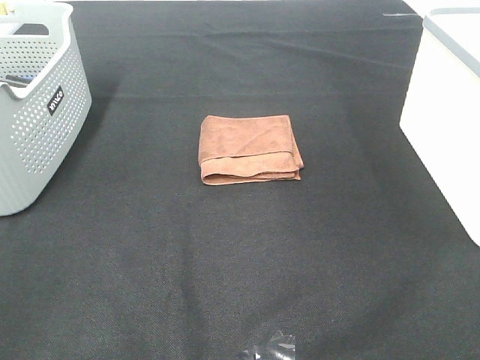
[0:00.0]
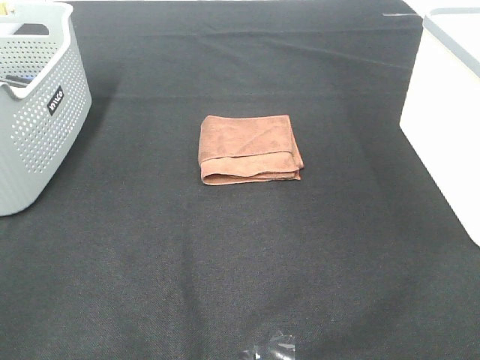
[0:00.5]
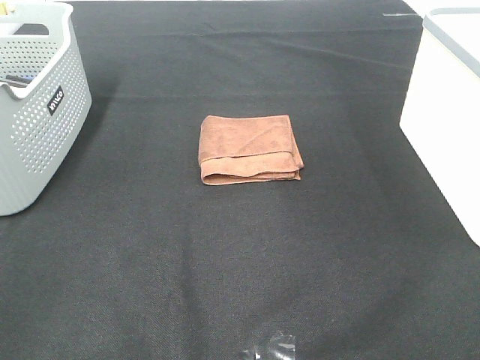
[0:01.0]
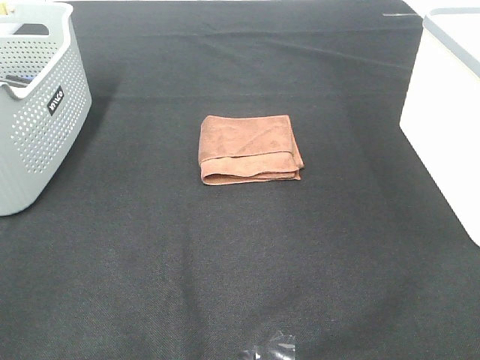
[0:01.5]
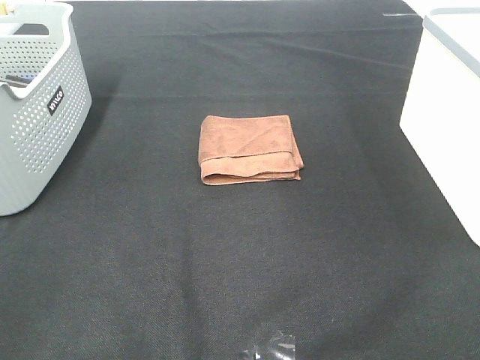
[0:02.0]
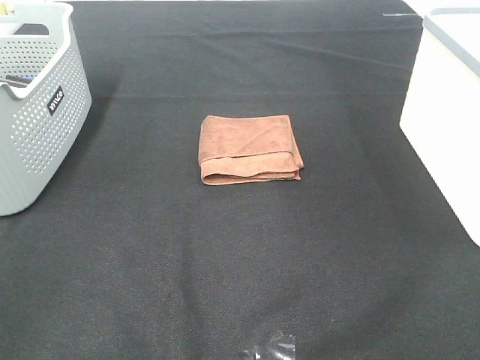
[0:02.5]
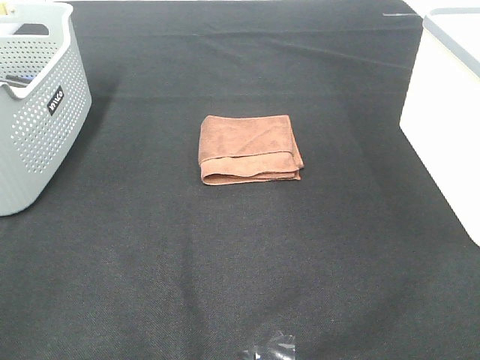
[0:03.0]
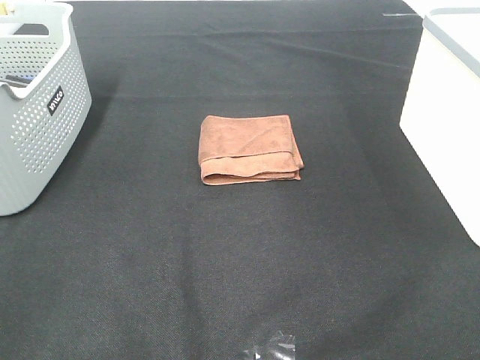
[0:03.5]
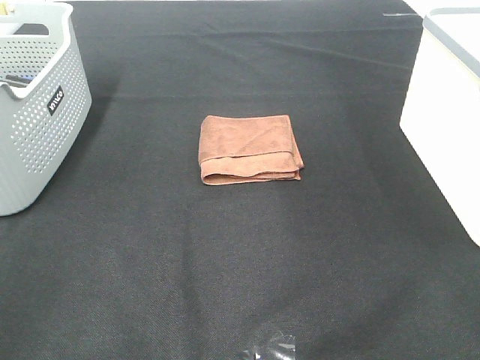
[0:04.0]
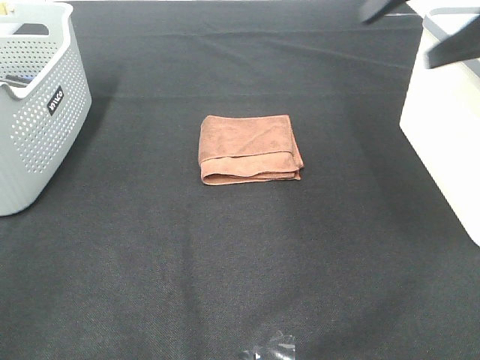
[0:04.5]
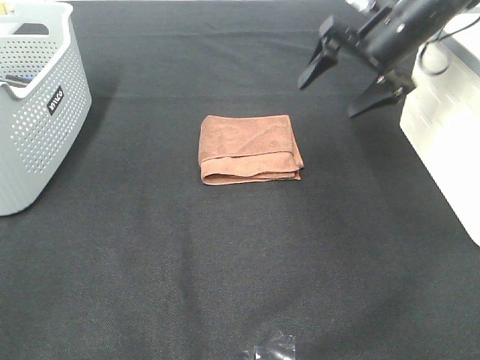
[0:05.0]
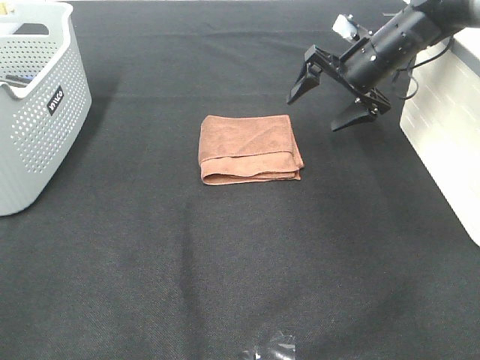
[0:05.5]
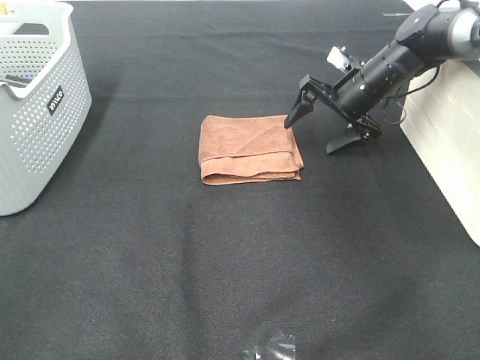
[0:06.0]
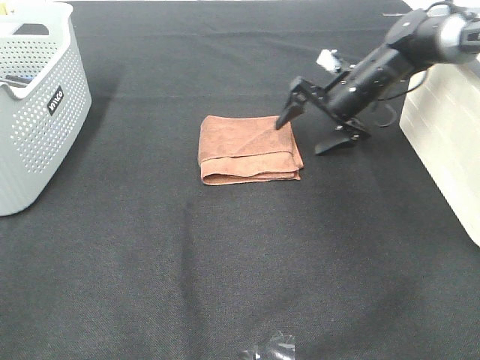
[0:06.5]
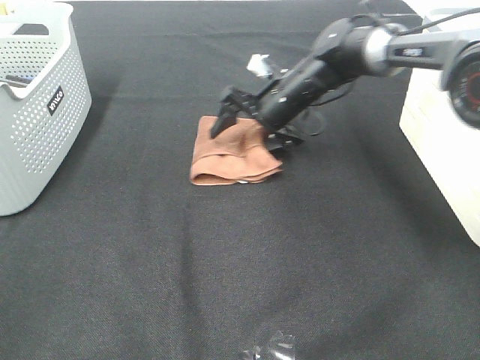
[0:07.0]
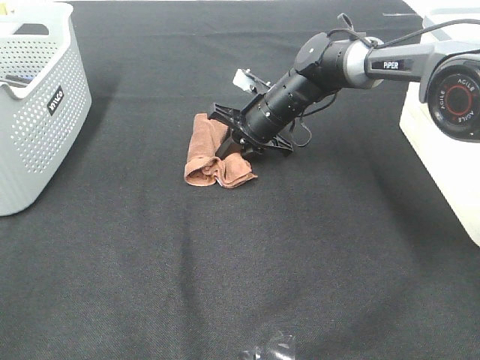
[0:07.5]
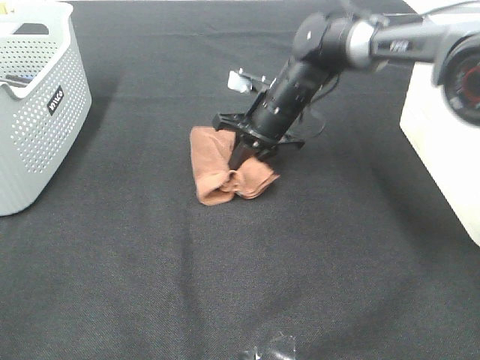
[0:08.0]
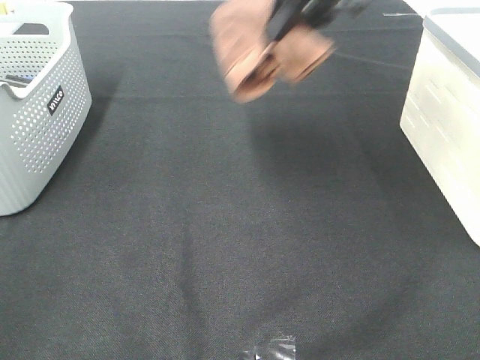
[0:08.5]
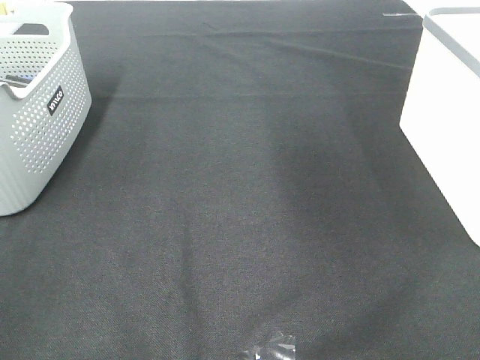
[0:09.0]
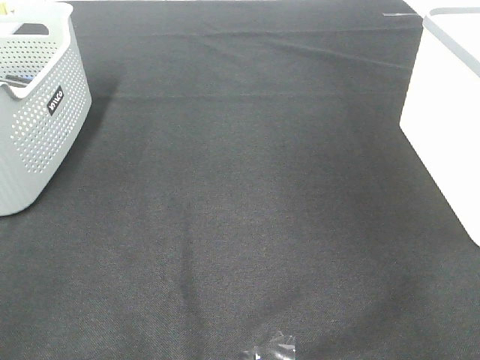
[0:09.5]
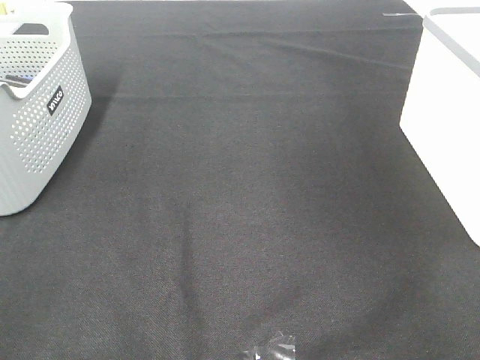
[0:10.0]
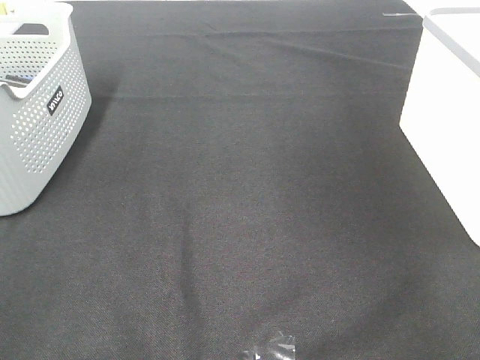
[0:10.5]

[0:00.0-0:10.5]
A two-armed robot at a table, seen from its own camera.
Step, 0:00.0 to 0:07.5: Right hand: grab the folded brown towel.
Step, 0:08.0 to 0:10.0: Right hand: place the brown towel in right basket.
0:00.0 to 0:02.0: Both grippers stay put.
0:04.0 to 0:06.5: The right gripper travels forward and downward by about 40 cm.
0:06.5 to 0:08.5: The right gripper heads upward, covering some 25 cm, and closes up.
0:08.5 to 0:10.5: The right gripper shifts roughly 30 cm to the right, and opens up.

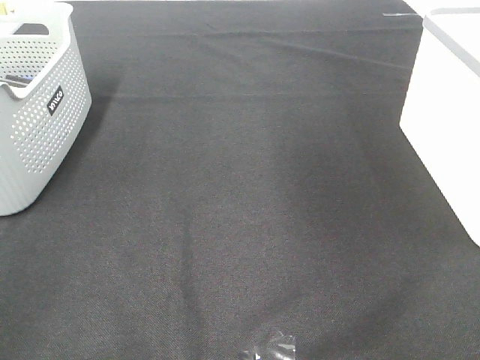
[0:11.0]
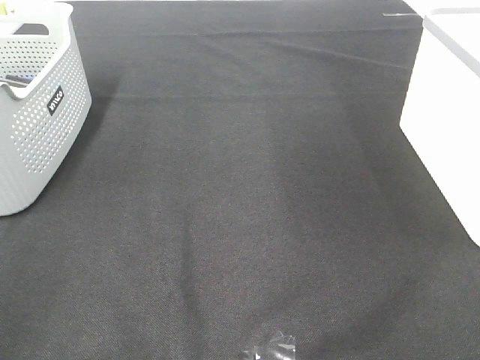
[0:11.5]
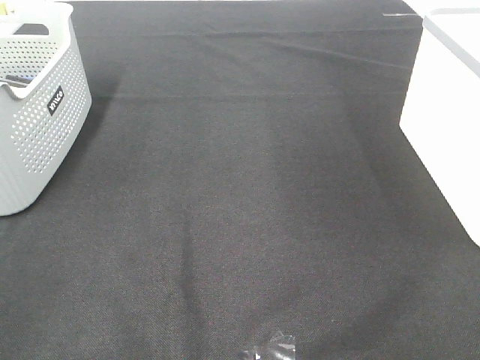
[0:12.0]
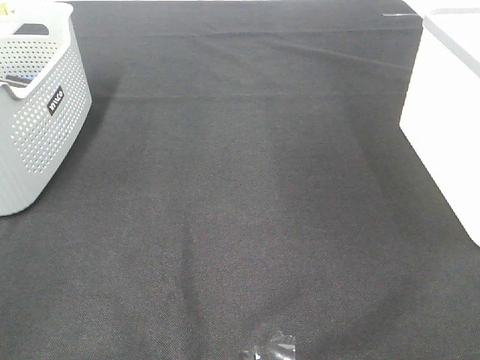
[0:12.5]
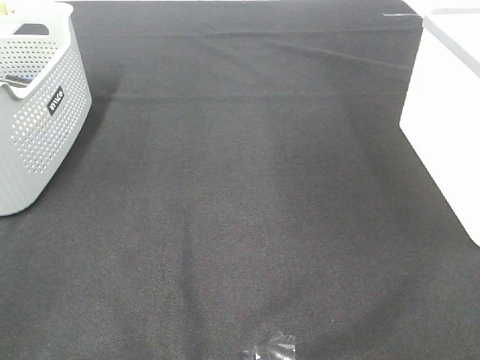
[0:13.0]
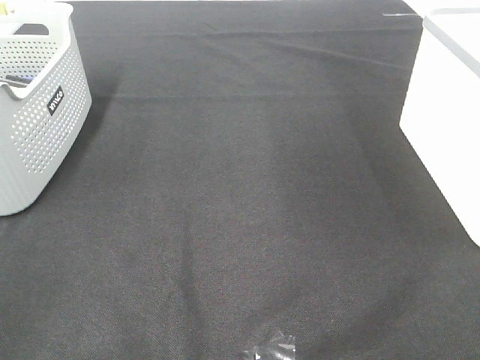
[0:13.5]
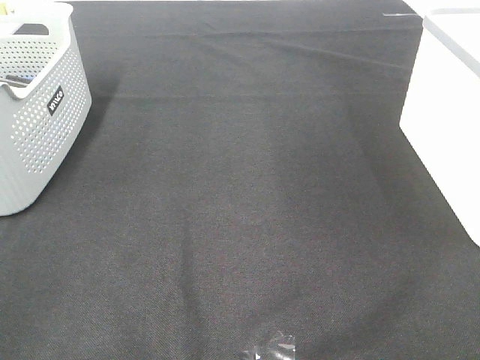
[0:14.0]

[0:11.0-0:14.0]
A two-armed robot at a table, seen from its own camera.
0:12.5 to 0:14.0: The two grippers keep their place.

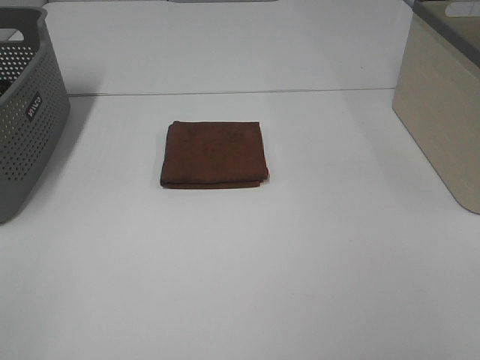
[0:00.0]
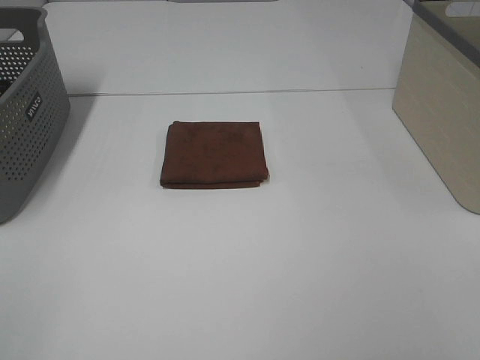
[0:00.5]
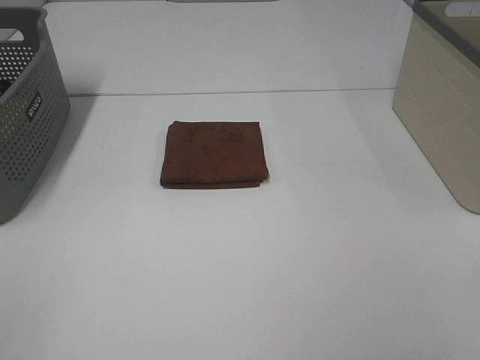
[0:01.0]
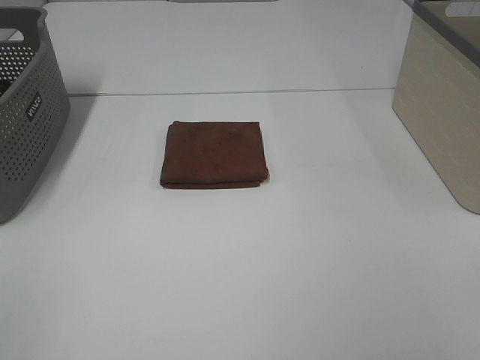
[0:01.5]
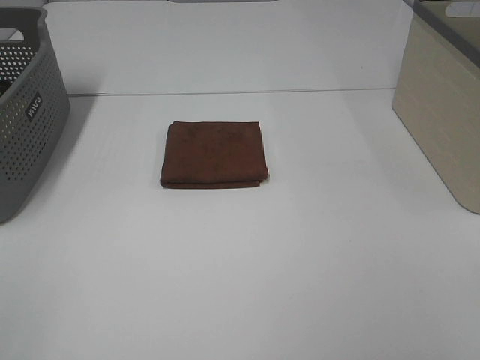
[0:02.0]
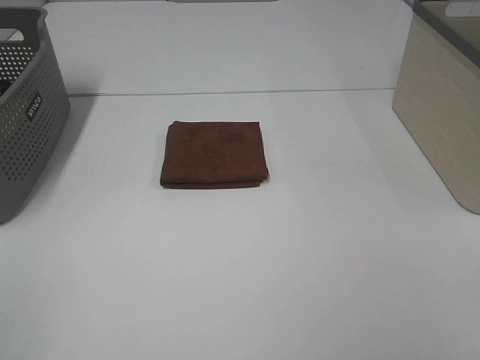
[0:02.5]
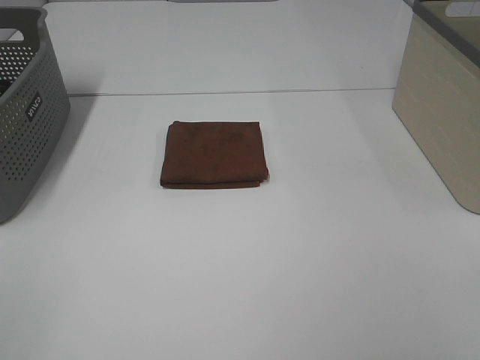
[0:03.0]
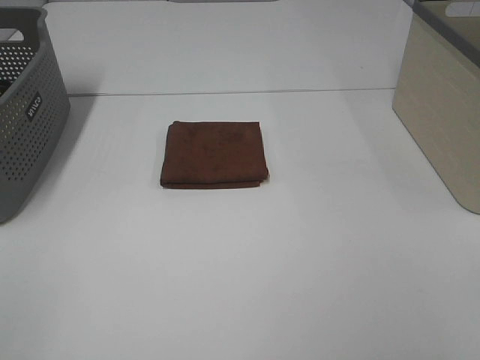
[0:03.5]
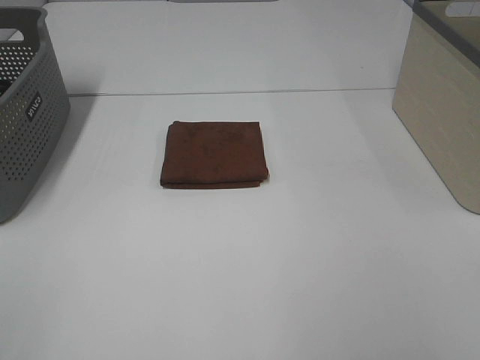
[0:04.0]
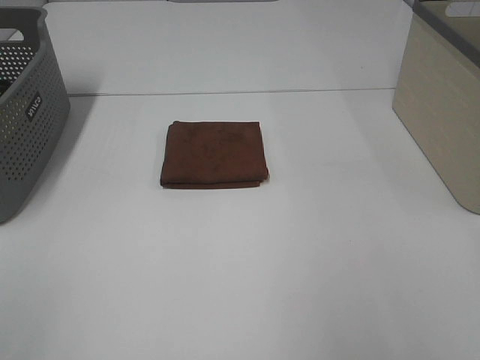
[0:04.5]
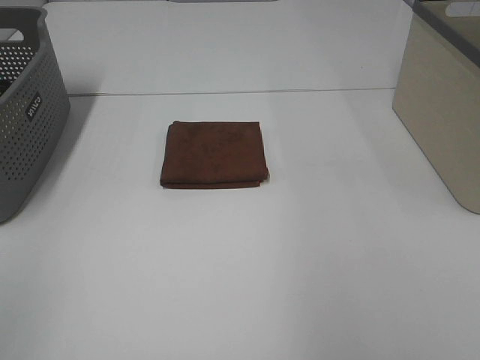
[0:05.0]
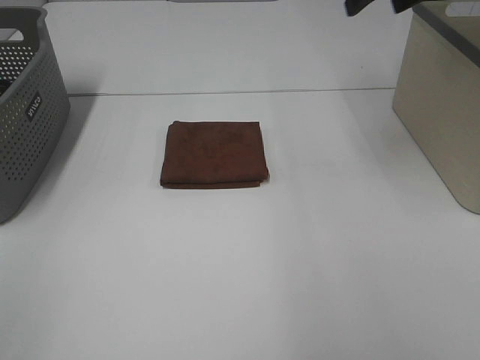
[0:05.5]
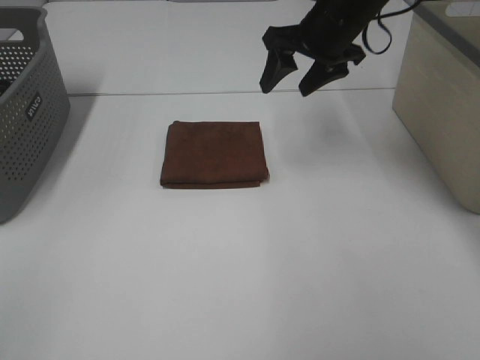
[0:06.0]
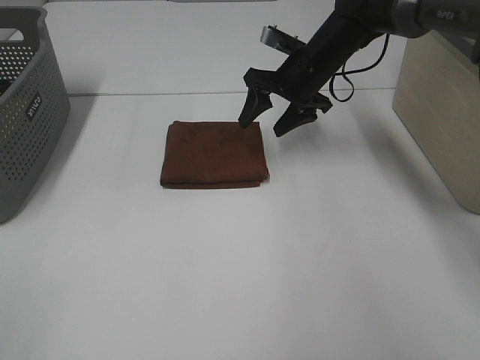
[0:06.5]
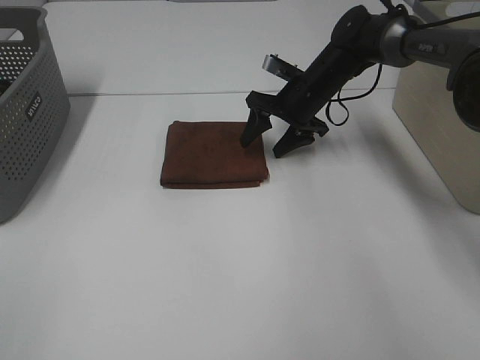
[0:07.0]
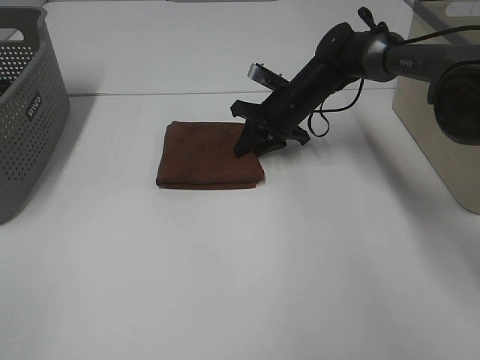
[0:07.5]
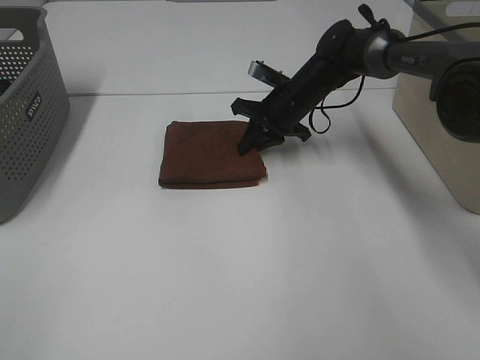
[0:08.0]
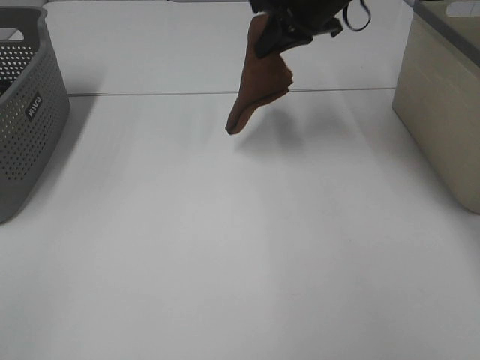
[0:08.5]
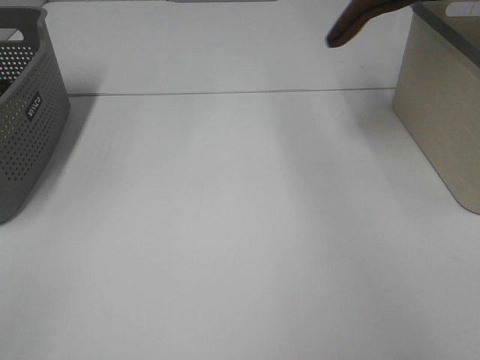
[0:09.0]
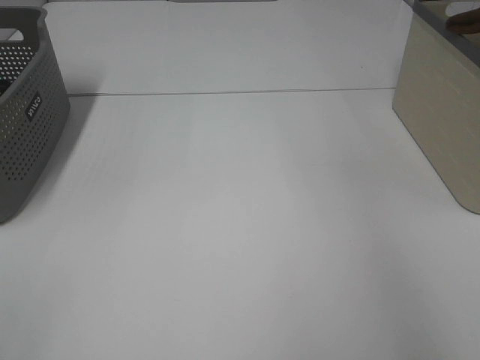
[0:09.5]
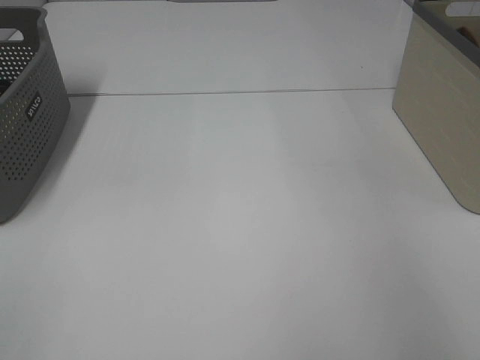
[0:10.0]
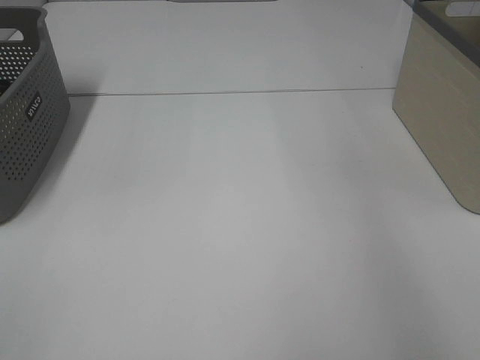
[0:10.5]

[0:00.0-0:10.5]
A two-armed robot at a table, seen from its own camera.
Step, 0:00.0 to 0:07.5: Right hand: grab the folded brown towel.
Step, 0:08.0 to 0:10.0: Right hand: place the brown towel in right basket.
0:00.0 to 0:02.0: Neither gripper changes place.
0:04.0 to 0:06.5: The right gripper moves forward, roughly 50 cm.
0:06.5 to 0:08.5: The right gripper heads upward, covering approximately 10 cm, and closes.
0:08.5 to 0:10.5: The right gripper moves to the right, some 25 cm, and opens its fingers.

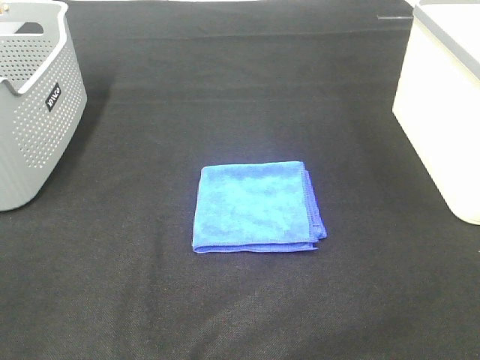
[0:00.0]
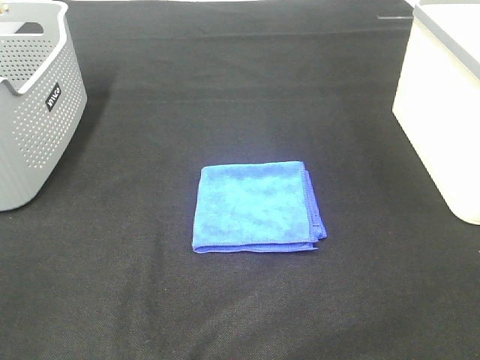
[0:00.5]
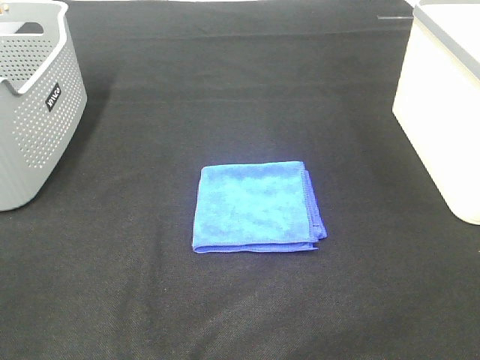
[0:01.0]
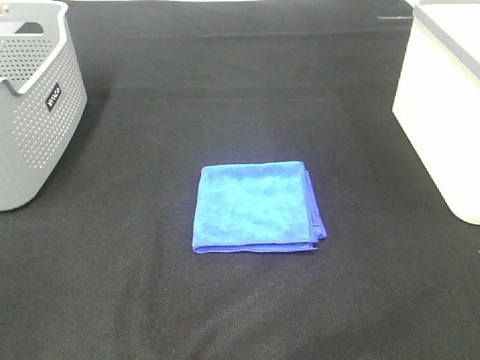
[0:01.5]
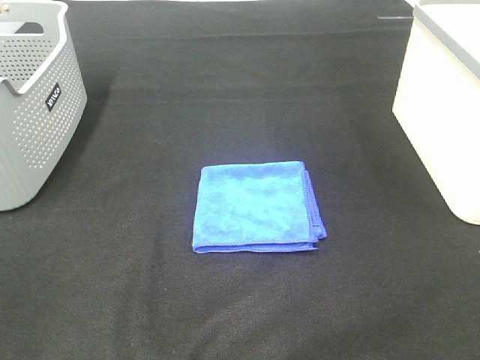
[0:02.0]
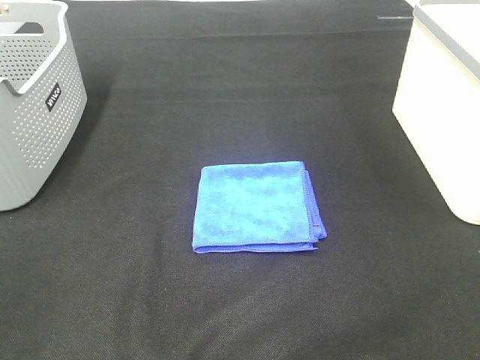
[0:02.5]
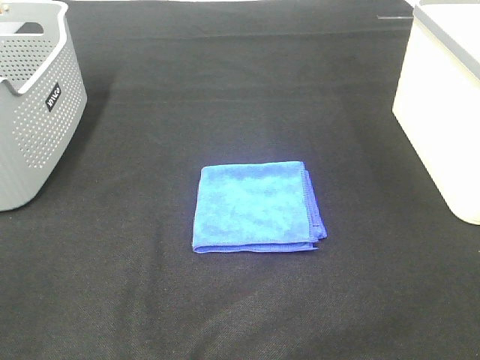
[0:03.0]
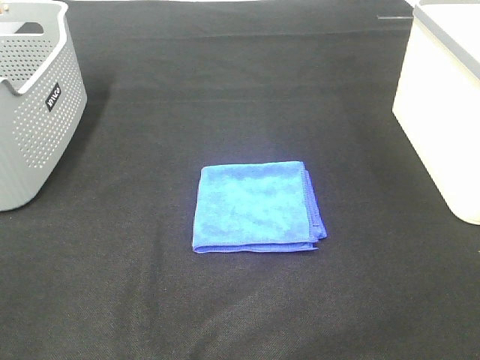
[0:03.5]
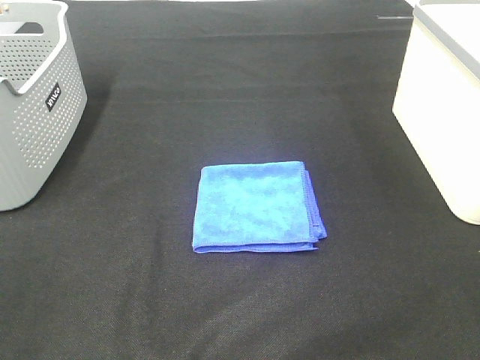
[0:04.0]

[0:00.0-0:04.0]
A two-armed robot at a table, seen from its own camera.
0:00.0 to 0:02.0: Both grippers stay about where they are.
